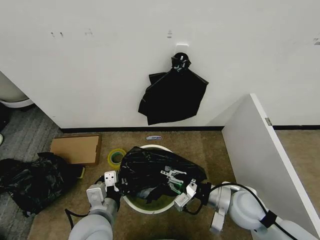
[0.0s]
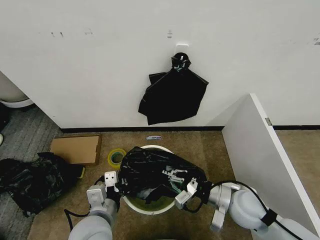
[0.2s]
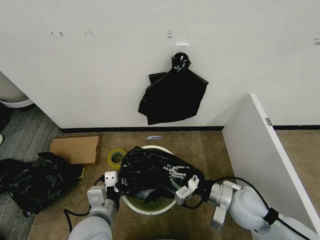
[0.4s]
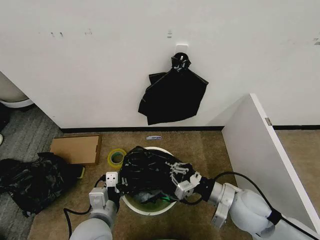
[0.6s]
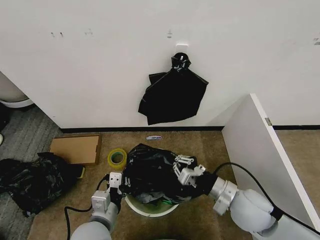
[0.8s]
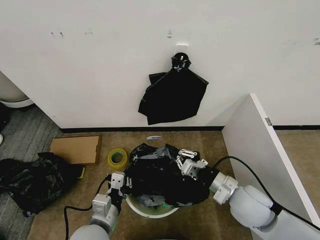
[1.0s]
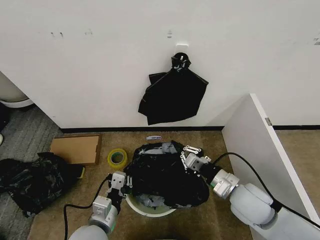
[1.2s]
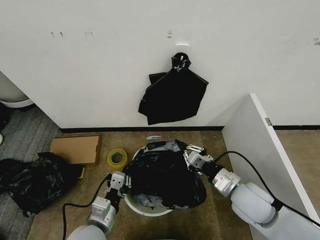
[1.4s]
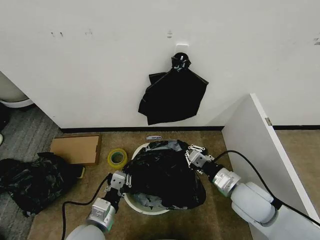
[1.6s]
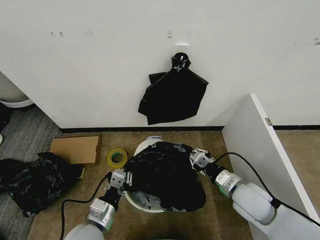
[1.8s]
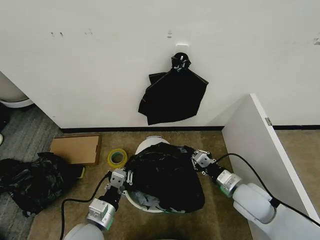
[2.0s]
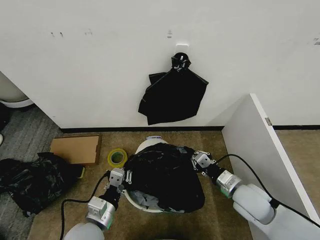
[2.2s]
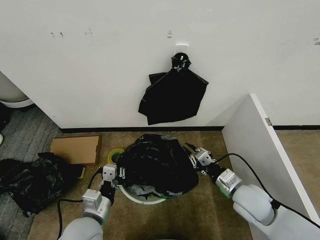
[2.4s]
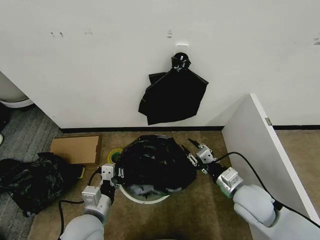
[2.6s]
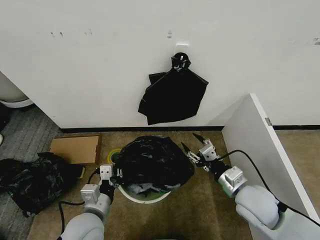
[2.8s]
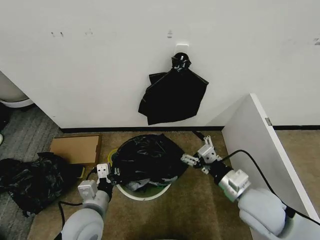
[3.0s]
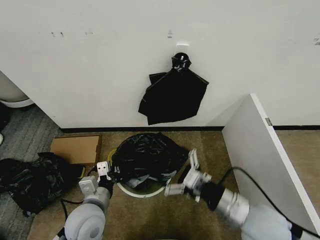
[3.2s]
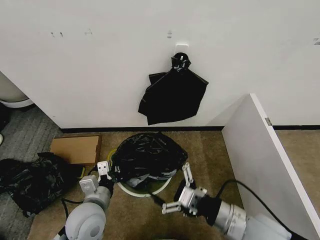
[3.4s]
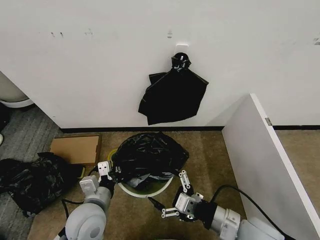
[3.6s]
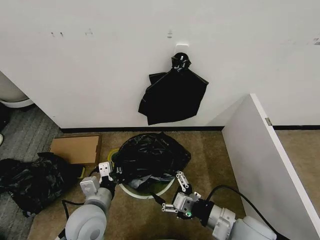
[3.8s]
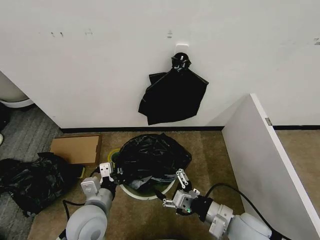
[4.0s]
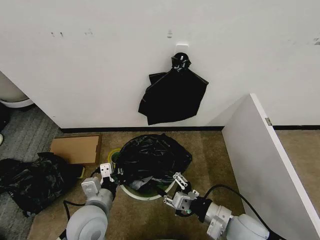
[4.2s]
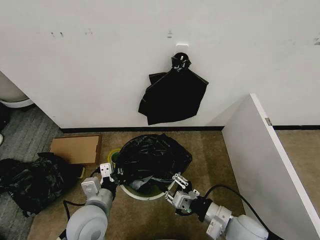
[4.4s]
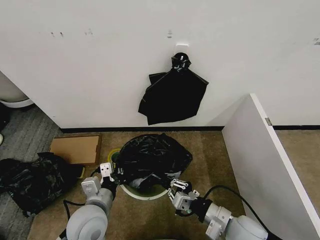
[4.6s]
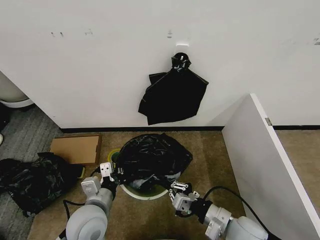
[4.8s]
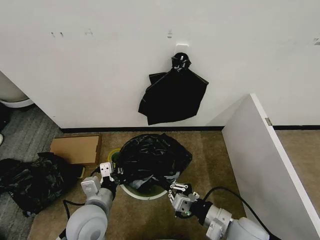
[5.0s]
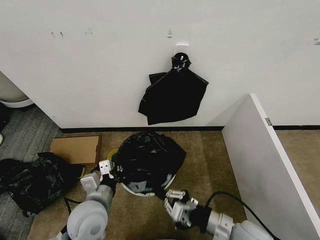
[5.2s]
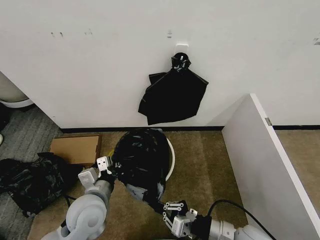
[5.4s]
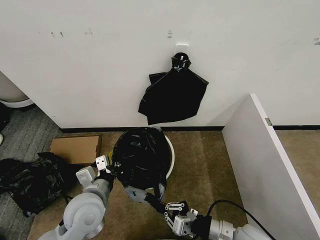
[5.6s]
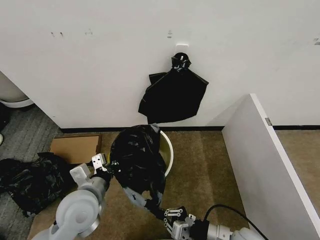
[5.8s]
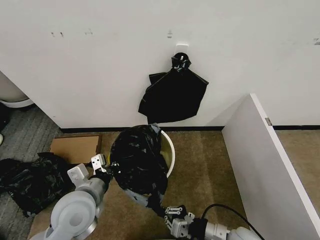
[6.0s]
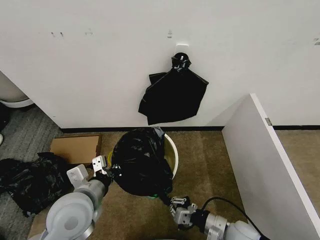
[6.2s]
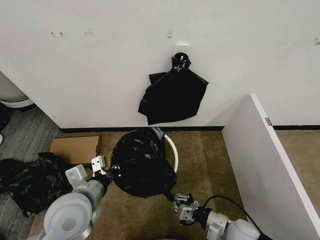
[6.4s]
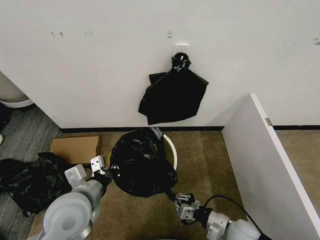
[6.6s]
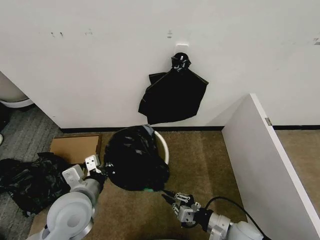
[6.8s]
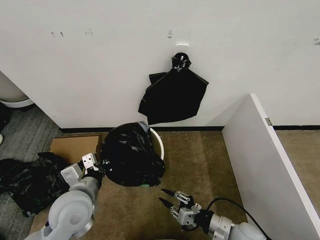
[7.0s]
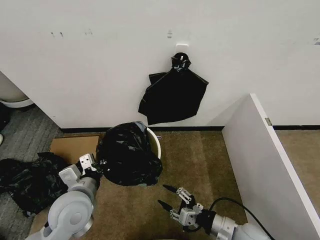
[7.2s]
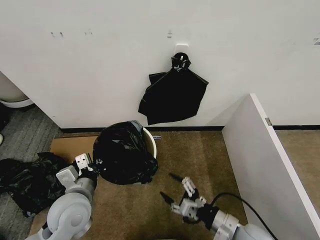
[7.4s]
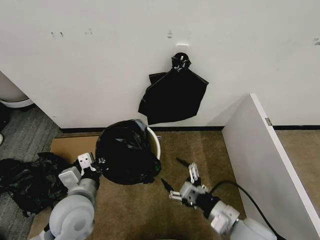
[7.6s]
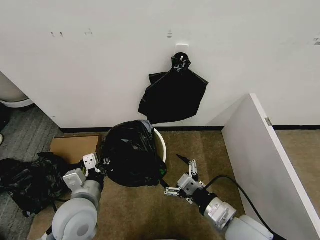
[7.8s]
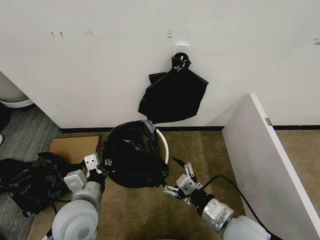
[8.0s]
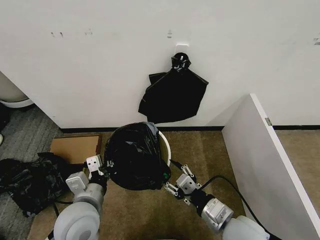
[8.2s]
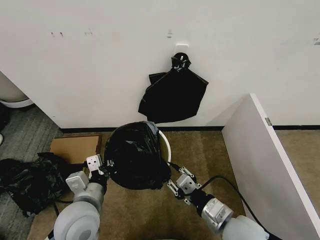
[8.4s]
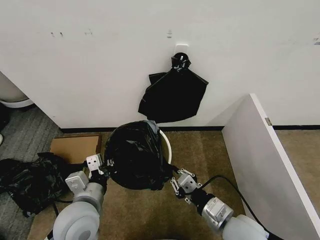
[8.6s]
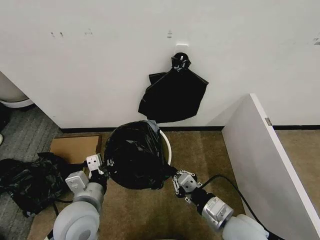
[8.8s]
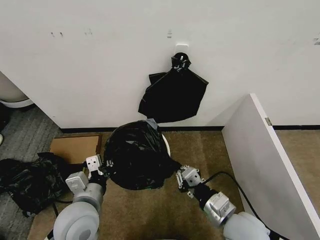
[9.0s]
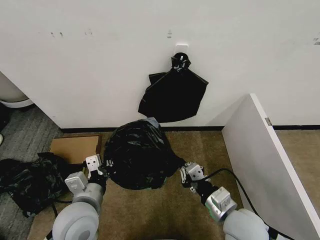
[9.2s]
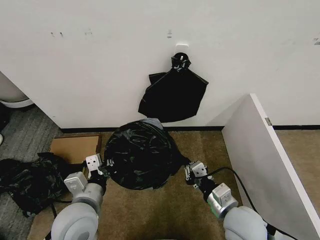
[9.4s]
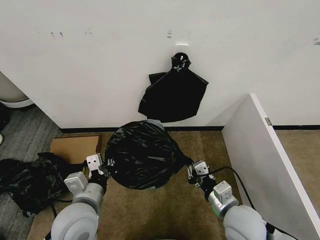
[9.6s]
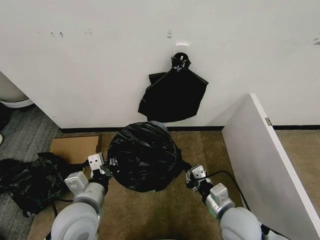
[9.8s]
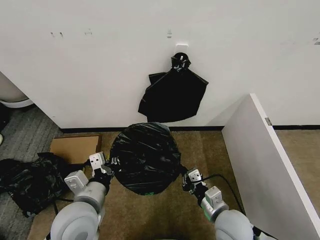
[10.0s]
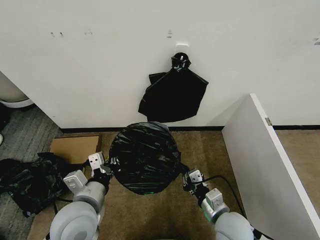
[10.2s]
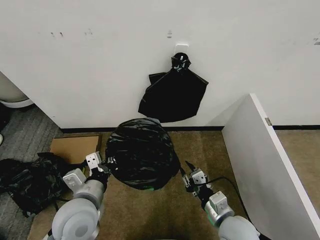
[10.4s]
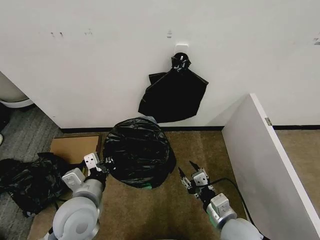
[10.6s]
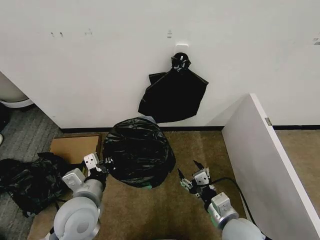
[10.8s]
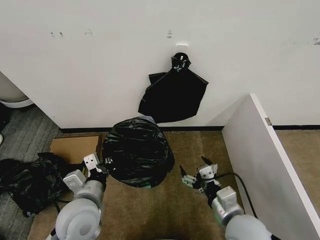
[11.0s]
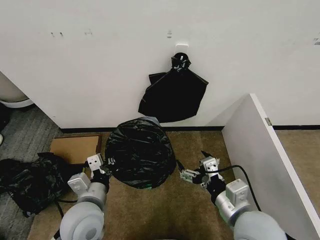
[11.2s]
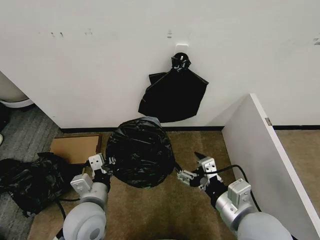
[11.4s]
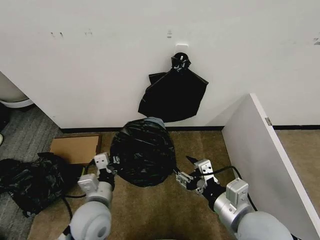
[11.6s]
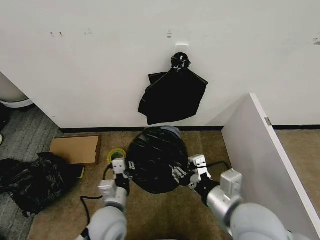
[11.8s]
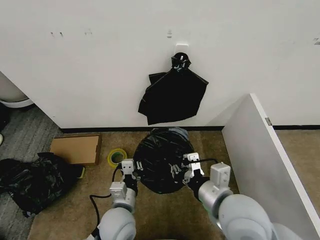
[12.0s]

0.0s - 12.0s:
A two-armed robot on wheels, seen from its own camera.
Task of the whole recording: Place the garbage bag over the trash bin.
0.0s - 1.6s: The left gripper heads downward, covering approximately 5 cm.
1.6s - 3.0s: The right gripper ends up some 5 cm from where it was, and opens.
3.0s - 4.4s: The right gripper moves downward, approximately 5 cm, and closes.
4.4s - 6.0s: The left gripper goes about 5 cm upward, while the right gripper is displaced downward by some 5 cm, and closes up.
6.0s - 7.6s: The right gripper shifts some 5 cm upward, and opens up.
7.6s - 9.0s: The right gripper closes.
9.0s - 10.4s: The right gripper is displaced downward by approximately 5 cm.
10.4s - 12.0s: The left gripper heads downward and to the right, covering approximately 10 cm, while the right gripper is displaced upward by approximately 15 cm, and opens, then closes once more.

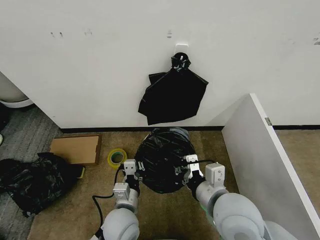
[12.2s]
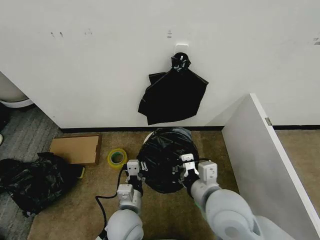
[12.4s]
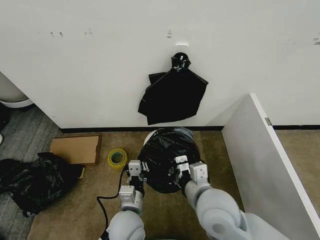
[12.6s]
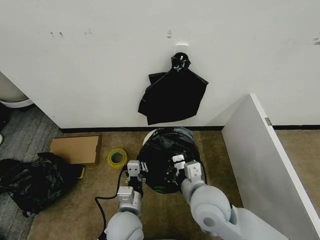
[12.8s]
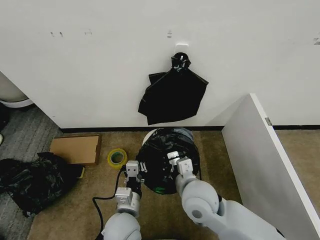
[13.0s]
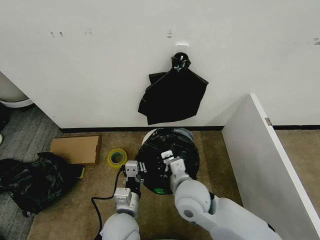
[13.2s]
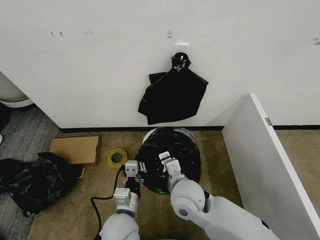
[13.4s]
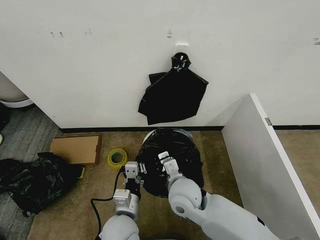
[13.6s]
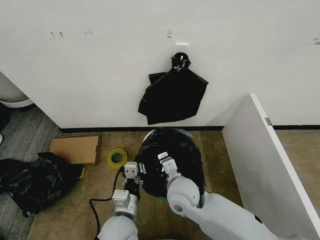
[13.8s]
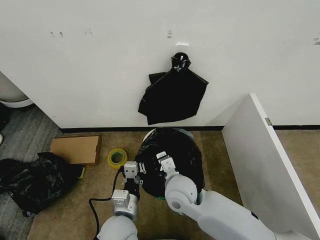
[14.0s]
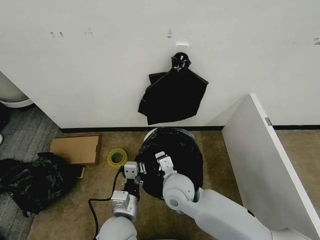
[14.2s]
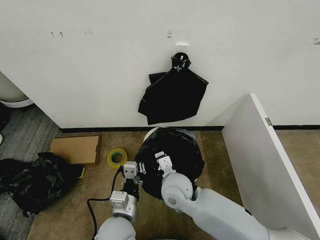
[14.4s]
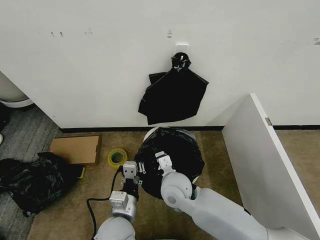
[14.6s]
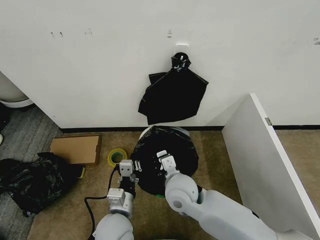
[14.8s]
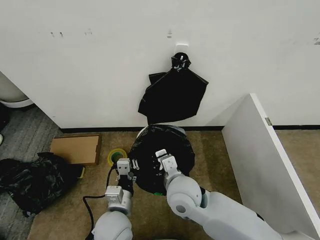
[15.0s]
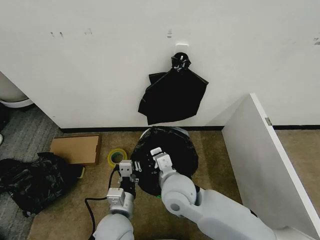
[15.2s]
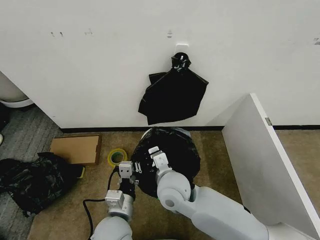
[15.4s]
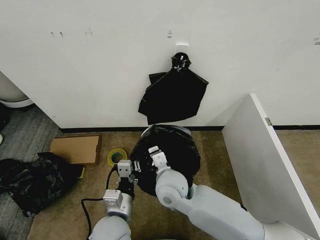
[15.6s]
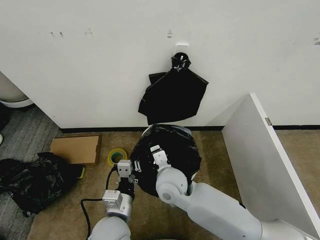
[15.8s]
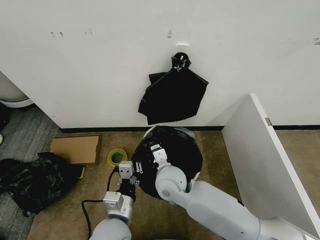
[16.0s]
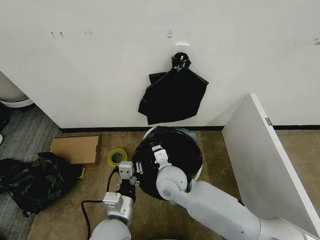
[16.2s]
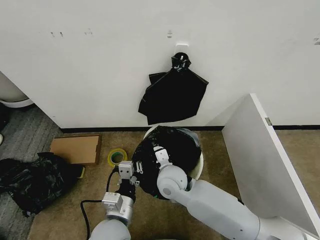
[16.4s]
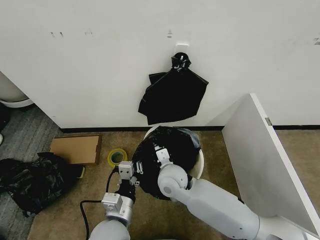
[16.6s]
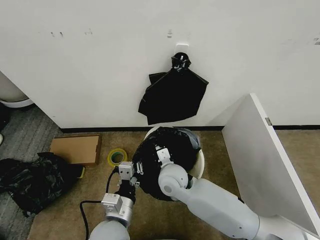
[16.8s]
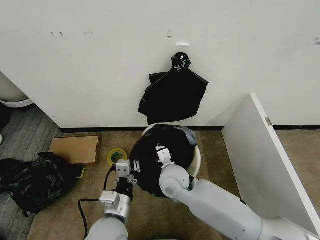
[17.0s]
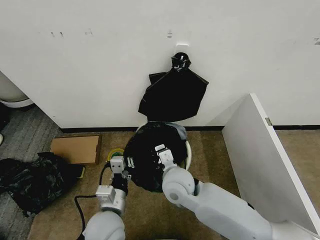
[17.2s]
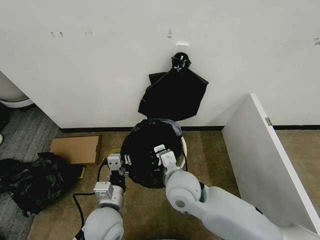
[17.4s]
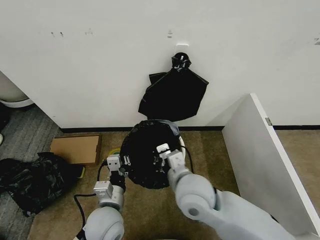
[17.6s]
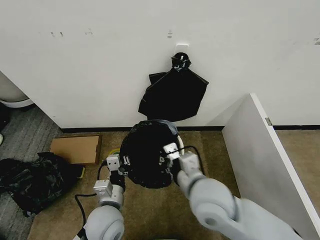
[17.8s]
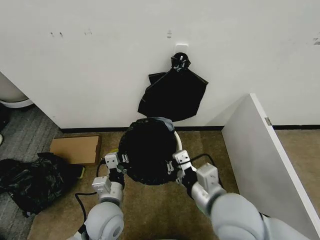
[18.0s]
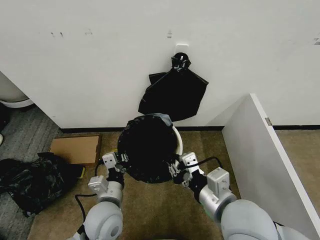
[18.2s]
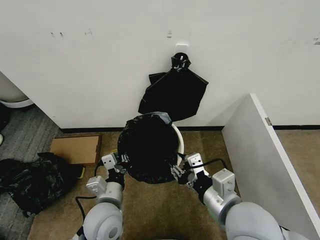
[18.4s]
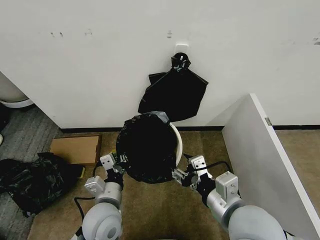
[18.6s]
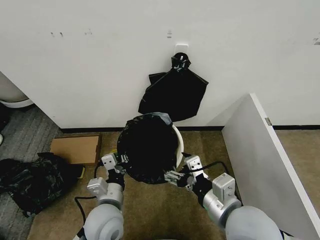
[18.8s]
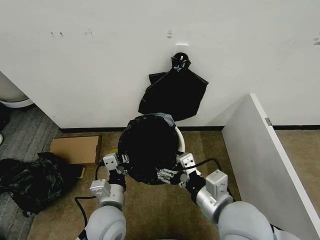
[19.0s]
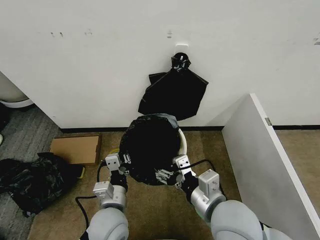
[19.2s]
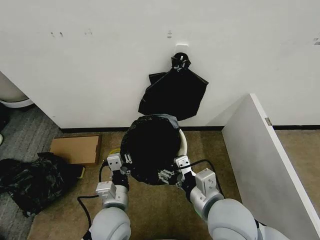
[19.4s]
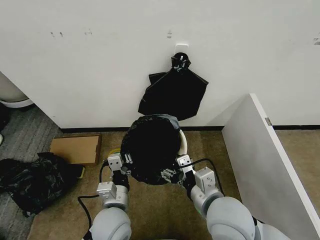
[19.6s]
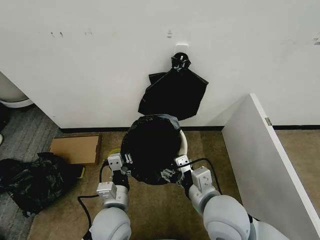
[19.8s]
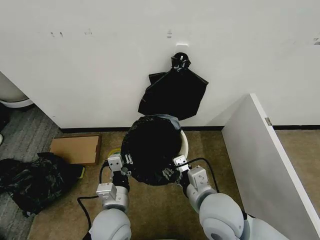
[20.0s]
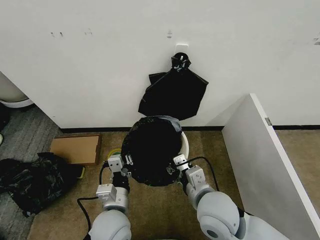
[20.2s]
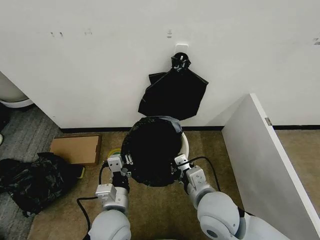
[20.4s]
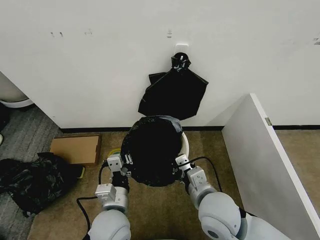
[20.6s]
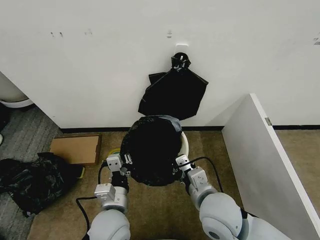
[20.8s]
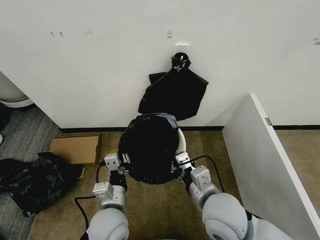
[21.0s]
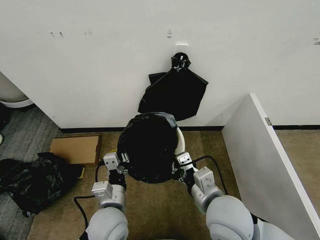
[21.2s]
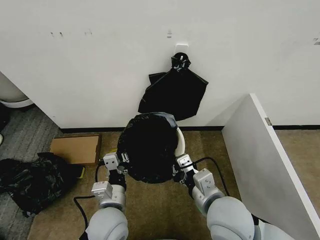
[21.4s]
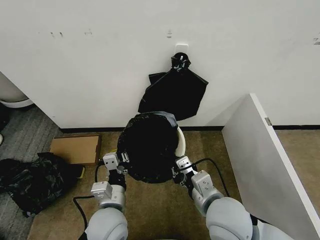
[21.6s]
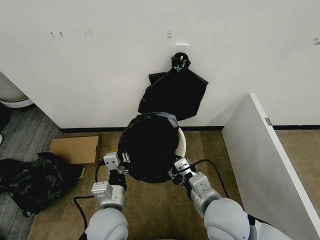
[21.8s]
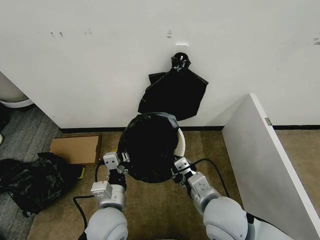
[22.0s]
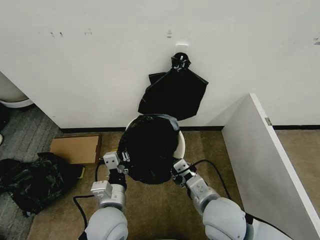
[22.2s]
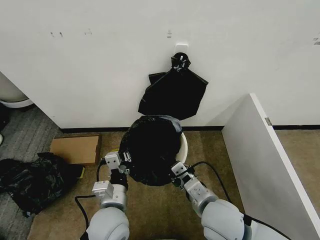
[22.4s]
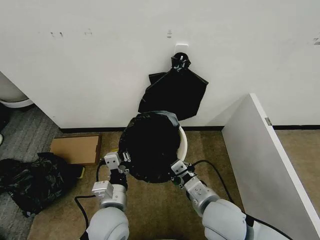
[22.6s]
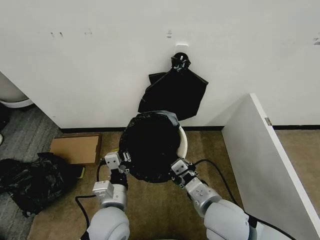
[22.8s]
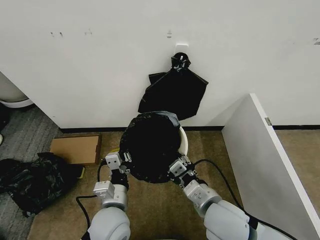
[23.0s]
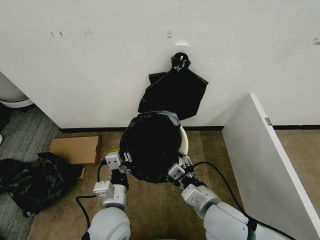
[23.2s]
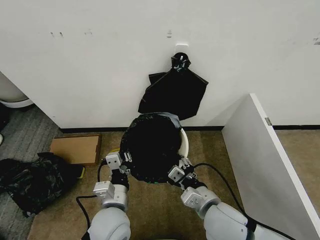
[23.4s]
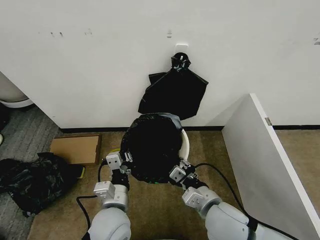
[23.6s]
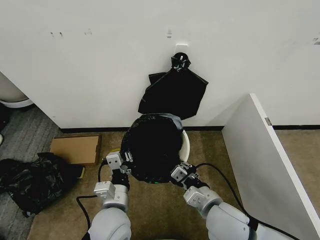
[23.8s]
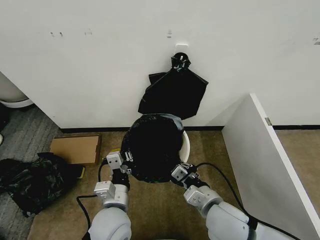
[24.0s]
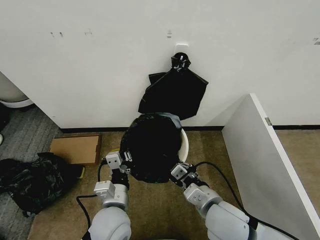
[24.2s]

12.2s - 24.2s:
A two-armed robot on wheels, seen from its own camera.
Task of the whole recording: Place the garbage bag over the trash bin.
12.2s - 13.8s: The right gripper shifts some 15 cm to the left, forward and downward.
13.8s - 15.2s: The grippers make only small movements.
15.2s - 16.6s: The right gripper shifts roughly 5 cm forward.
16.6s - 18.2s: The right gripper is displaced backward, to the right and upward by roughly 25 cm, while the left gripper is displaced forward by approximately 5 cm.
18.2s - 19.8s: The right gripper opens up.
19.8s - 21.2s: The right gripper closes its fingers.
21.2s - 22.6s: The right gripper opens, then closes again.
22.6s - 24.2s: The right gripper opens and closes again.
